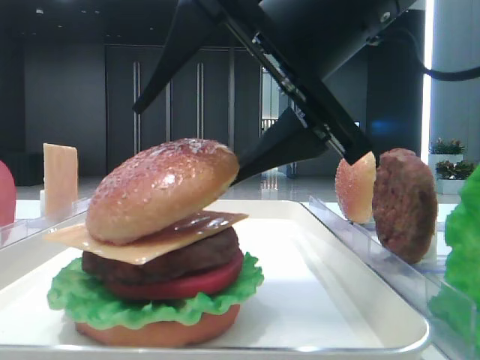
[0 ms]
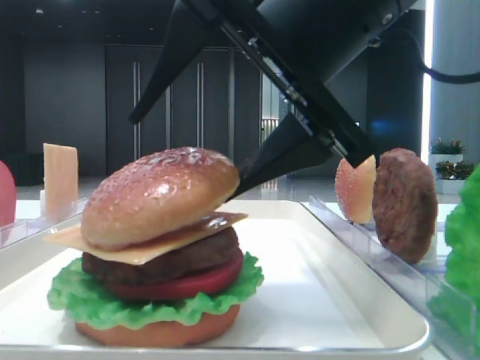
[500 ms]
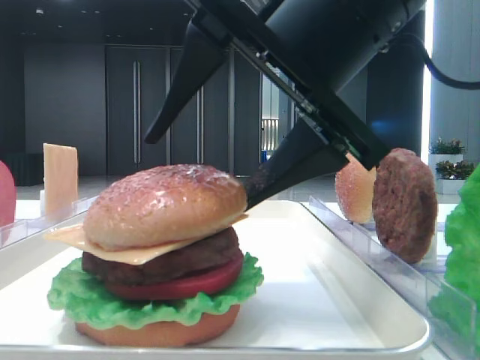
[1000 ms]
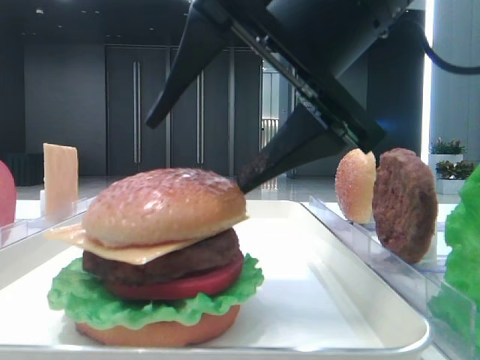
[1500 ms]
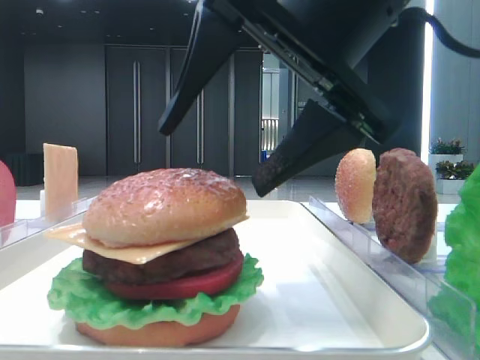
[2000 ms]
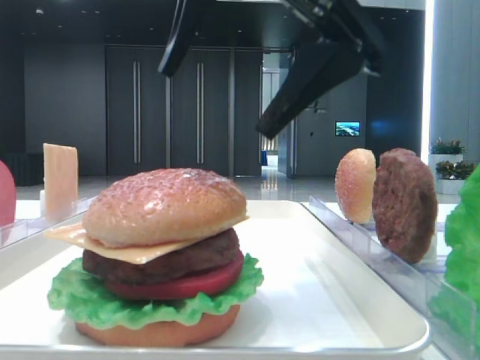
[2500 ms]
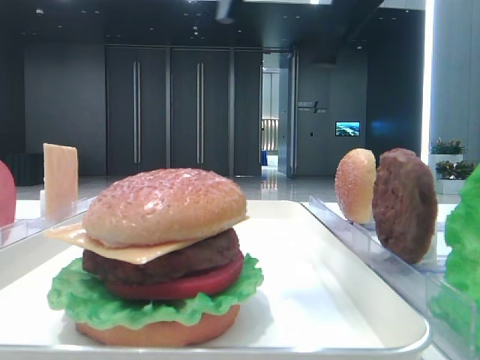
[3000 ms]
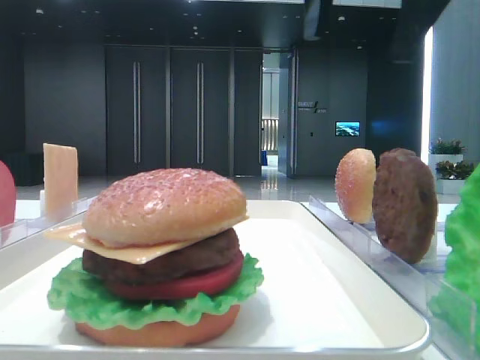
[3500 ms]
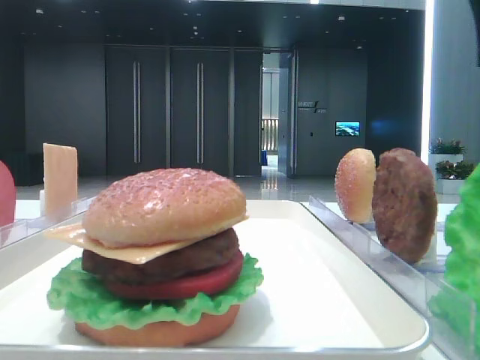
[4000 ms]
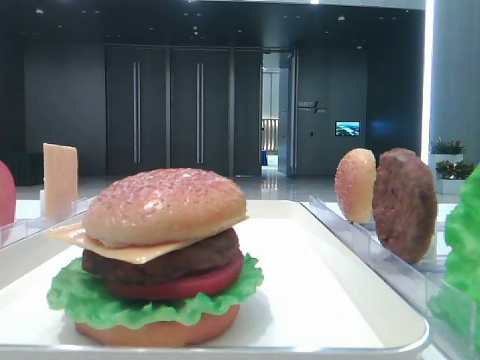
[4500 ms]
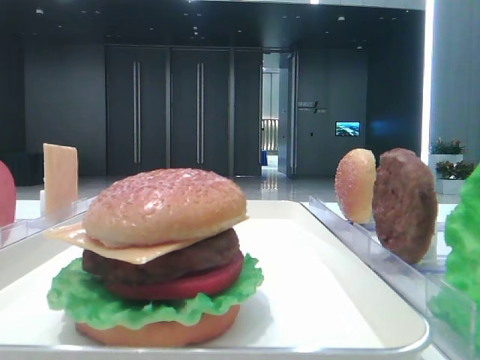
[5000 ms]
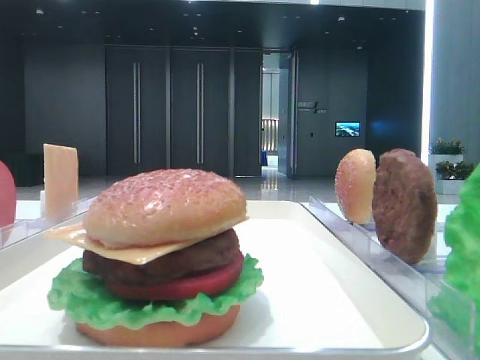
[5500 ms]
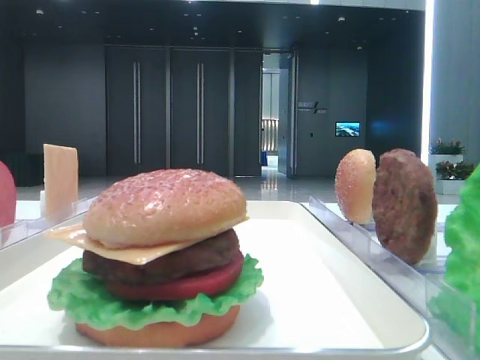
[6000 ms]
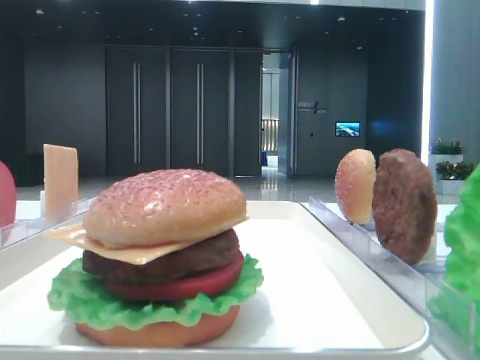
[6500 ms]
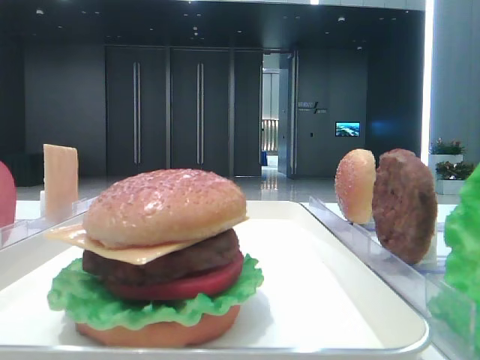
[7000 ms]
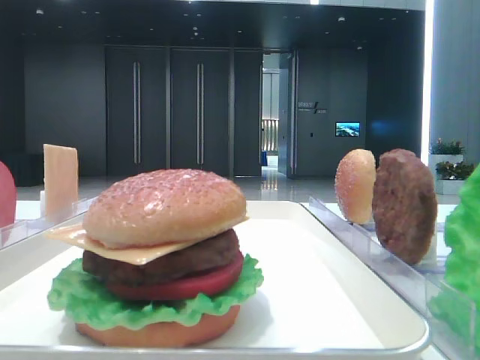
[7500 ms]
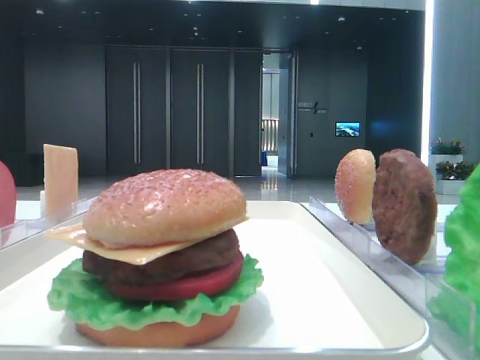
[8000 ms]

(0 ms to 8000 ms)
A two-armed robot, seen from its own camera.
0 ms - 2000 ms: There are only small adjustments of the grippers.
2000 ms - 4000 ms: The right gripper is displaced to the right, upward and forward by approximately 25 cm.

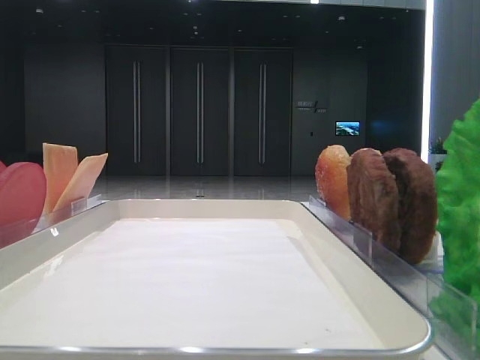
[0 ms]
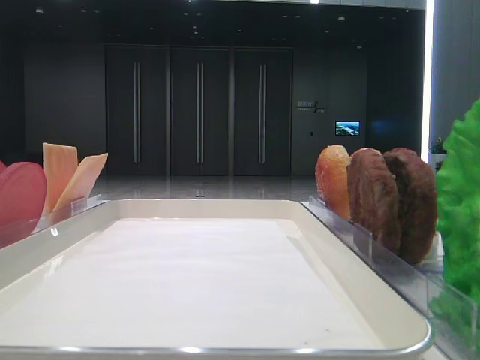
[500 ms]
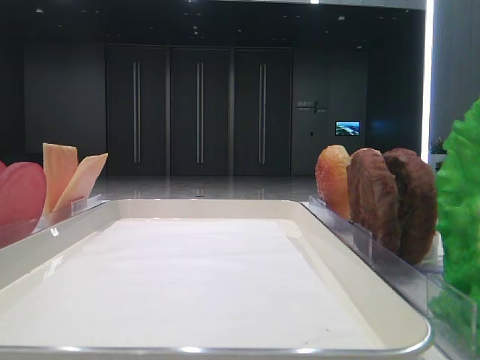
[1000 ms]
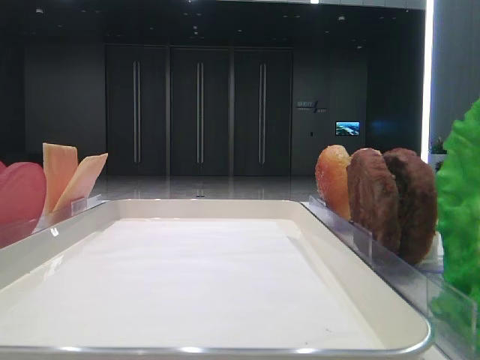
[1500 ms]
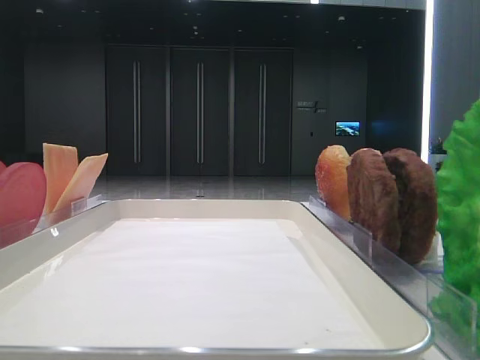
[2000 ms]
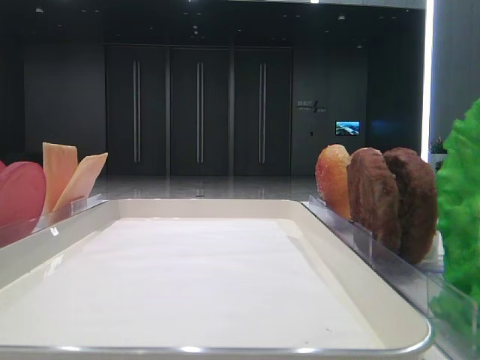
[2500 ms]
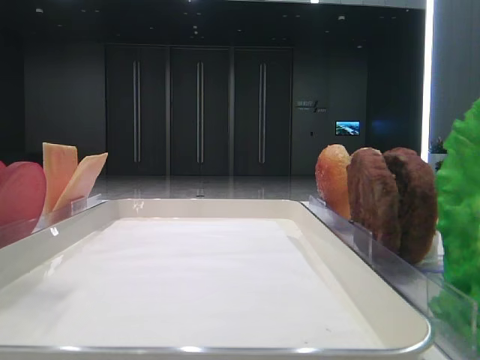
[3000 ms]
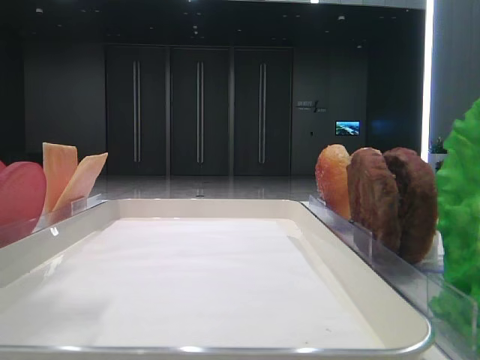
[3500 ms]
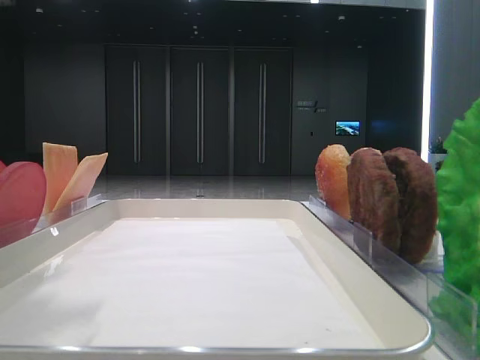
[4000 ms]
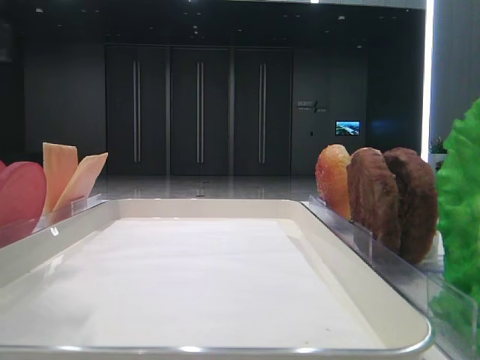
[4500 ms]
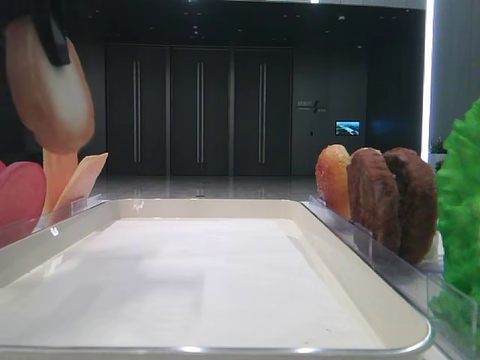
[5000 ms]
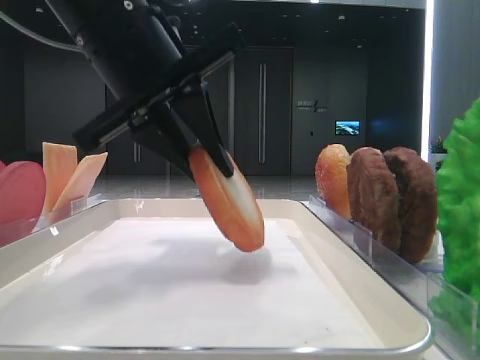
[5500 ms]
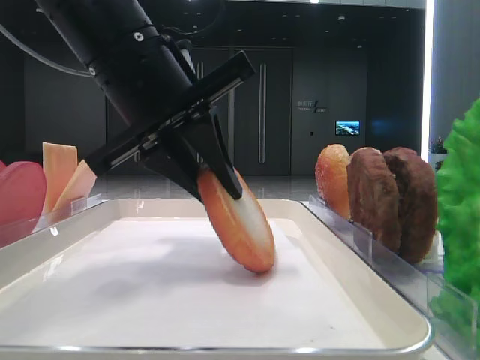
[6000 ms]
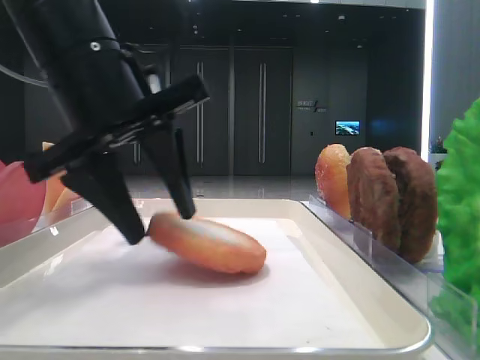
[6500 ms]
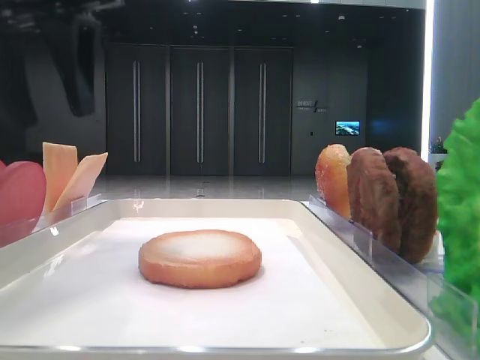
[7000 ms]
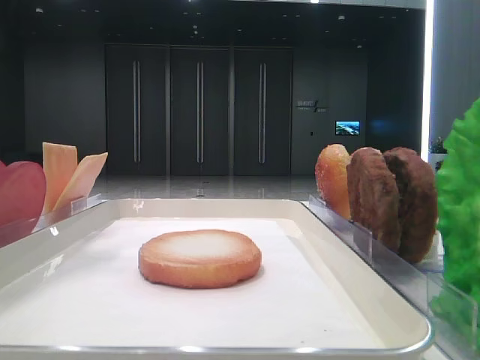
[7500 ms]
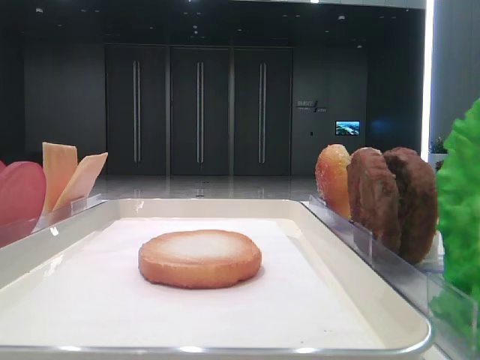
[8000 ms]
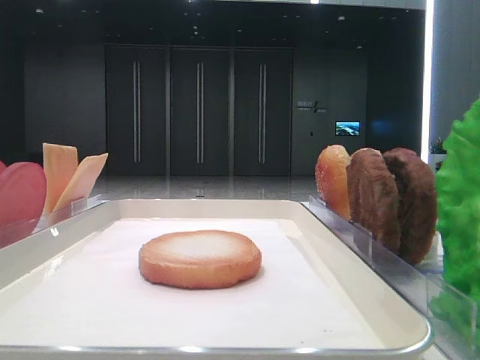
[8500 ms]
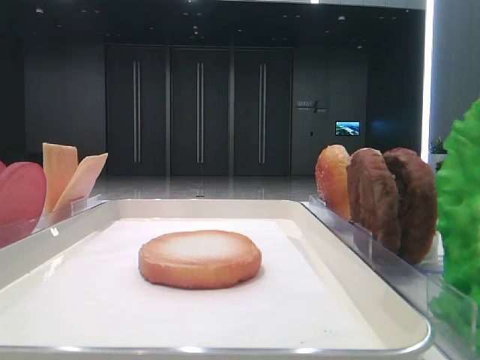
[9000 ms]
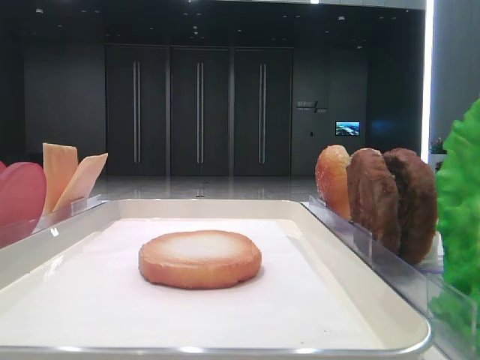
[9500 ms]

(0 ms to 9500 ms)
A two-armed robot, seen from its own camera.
Step, 5000 ms - 6500 ms: Place the bread on the tray with the left hand.
2000 ms - 4000 ms: The left gripper goes some 20 cm forward and to the right.
4000 ms - 5500 ms: The left gripper goes roughly 15 cm to the right and forward, and closes up.
5500 ms - 7500 ms: The left gripper shifts some 20 cm to the left and upward, and opens up.
7500 ms - 9500 ms: The left gripper goes roughly 30 cm backward.

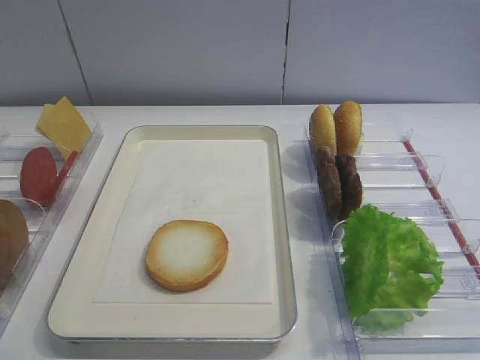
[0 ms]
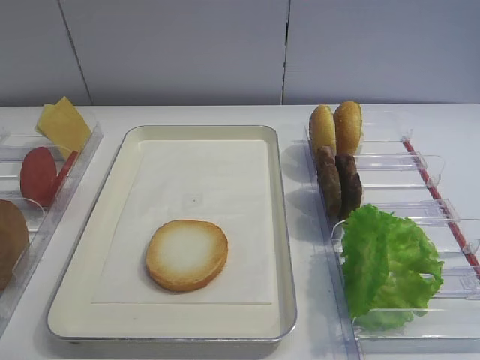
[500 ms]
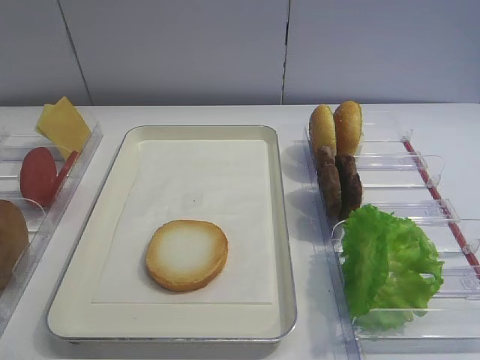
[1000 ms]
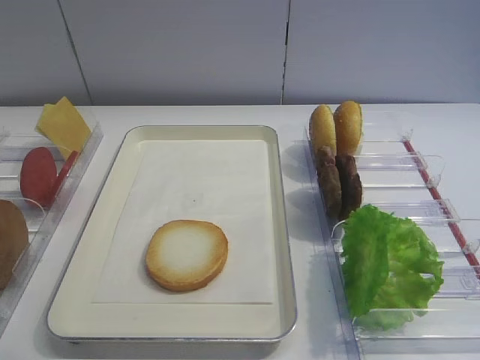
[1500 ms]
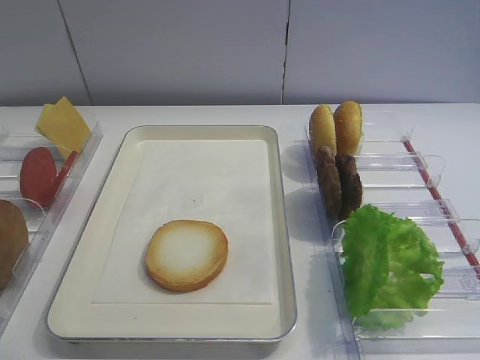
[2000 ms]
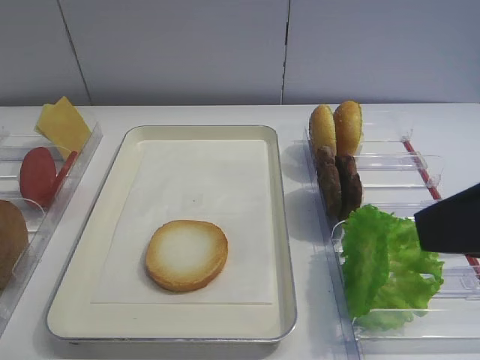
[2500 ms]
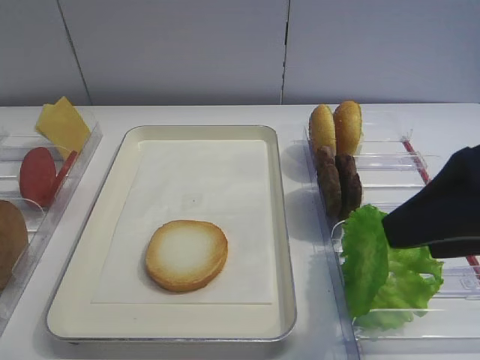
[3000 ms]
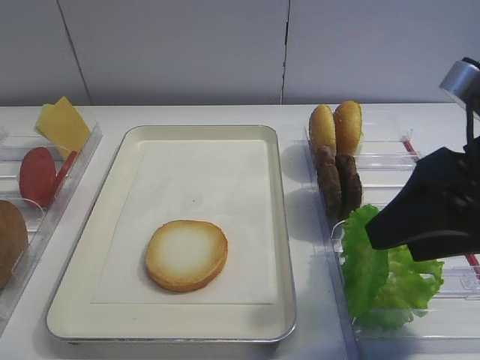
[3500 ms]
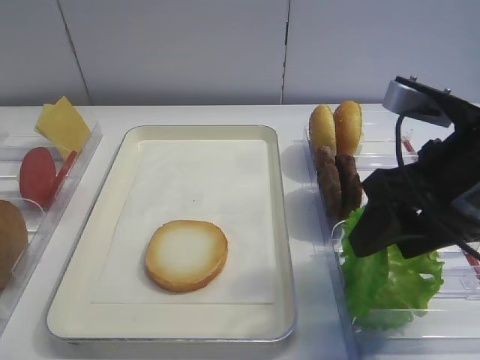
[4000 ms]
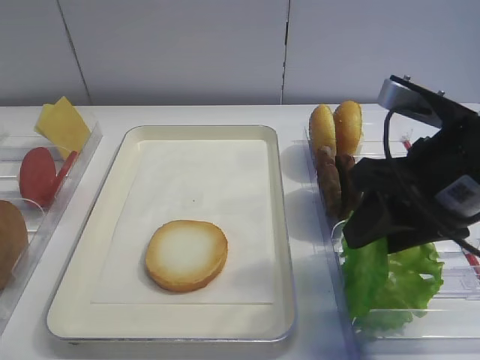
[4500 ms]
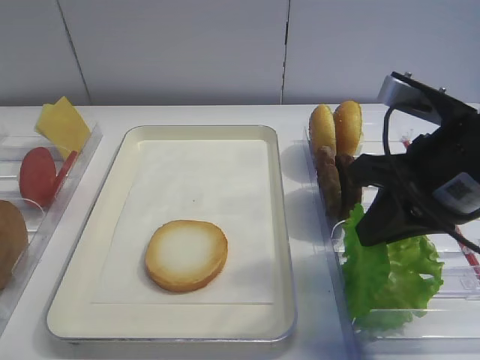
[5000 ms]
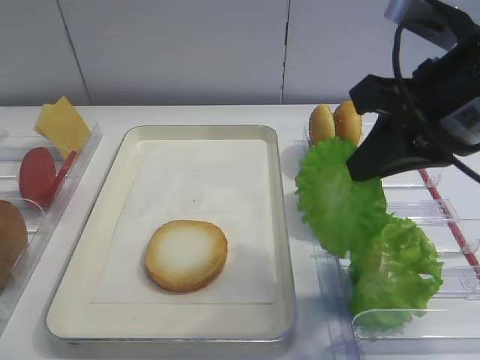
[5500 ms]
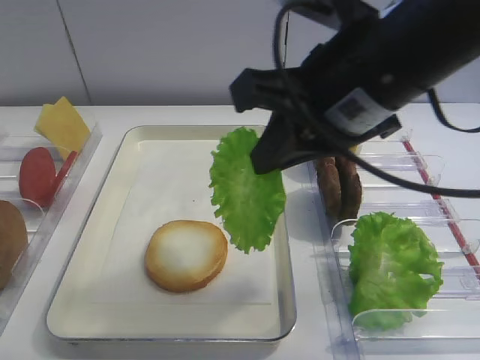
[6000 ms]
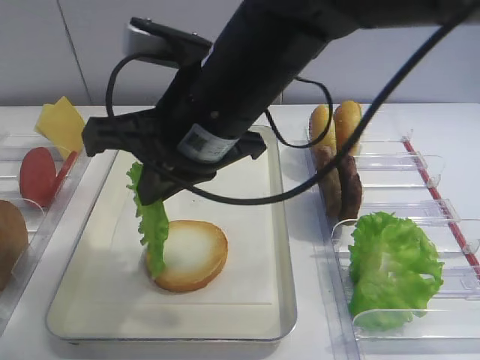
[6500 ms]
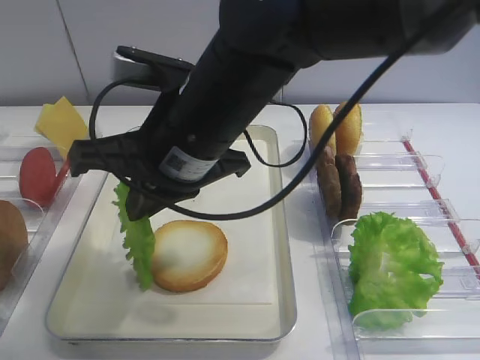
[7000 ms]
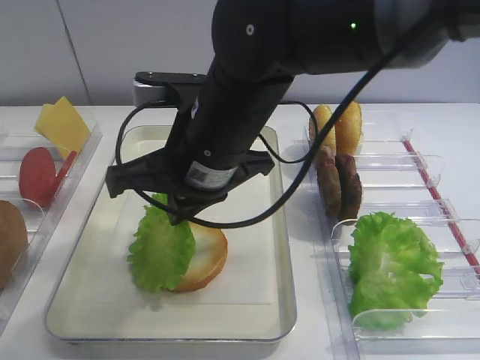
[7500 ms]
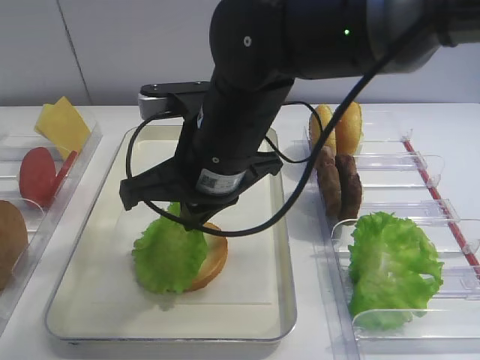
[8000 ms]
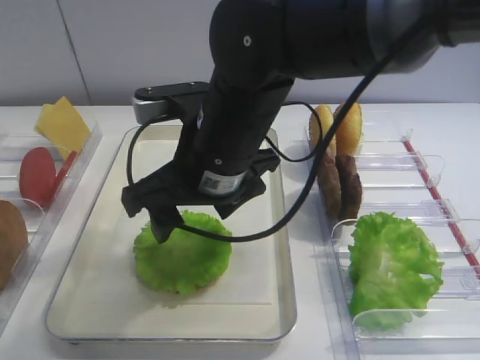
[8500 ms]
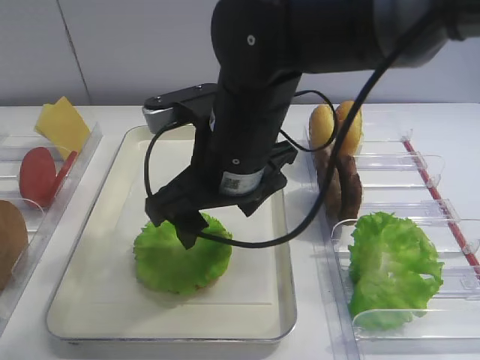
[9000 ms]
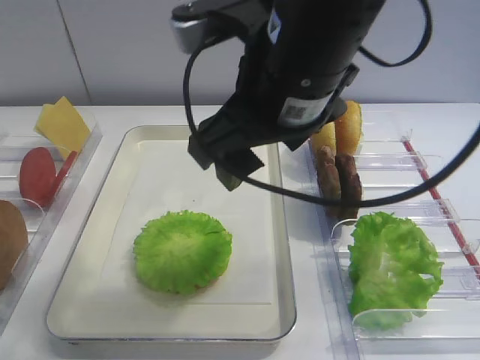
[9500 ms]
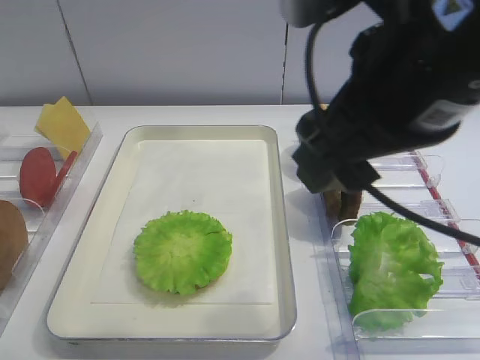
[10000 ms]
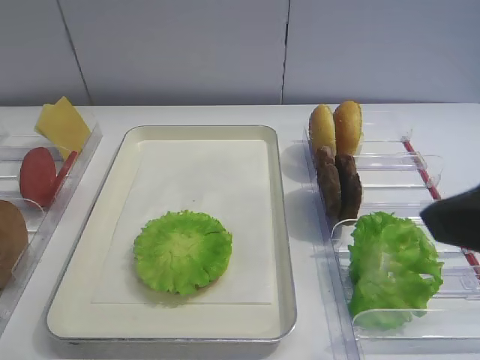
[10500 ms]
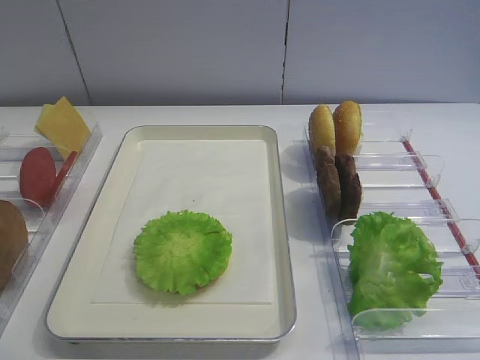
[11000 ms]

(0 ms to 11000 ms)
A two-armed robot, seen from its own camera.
Step, 0 ms - 5000 ms: Pick up the lettuce leaf with the right gripper.
Step, 5500 ms - 8000 ms: Place the lettuce leaf on the bread slice with the right gripper.
2000 ms - 3500 ms: The right gripper moves forward and downward, about 15 cm.
3500 ms - 5500 ms: The right gripper shifts by some 5 cm, and closes its fingers.
5500 ms - 7500 ms: The right gripper heads to the left, covering about 20 cm.
7500 ms - 9000 ms: The right gripper opens up.
9000 ms - 11000 ms: The right gripper shifts roughly 35 cm to the right and backward.
